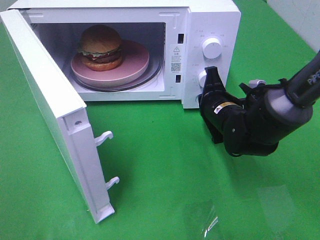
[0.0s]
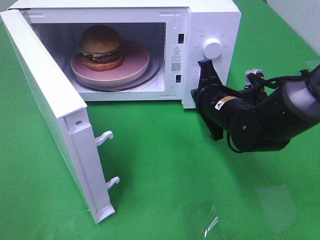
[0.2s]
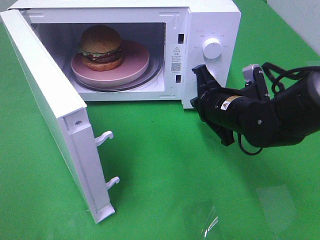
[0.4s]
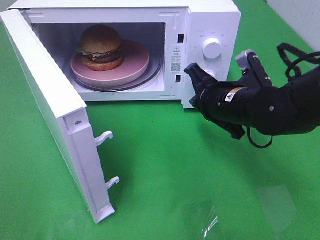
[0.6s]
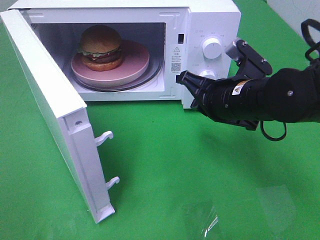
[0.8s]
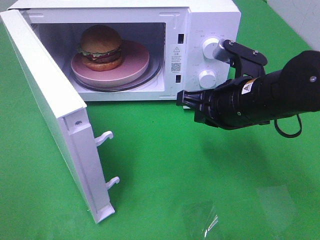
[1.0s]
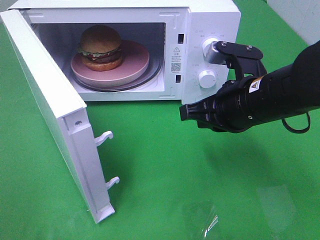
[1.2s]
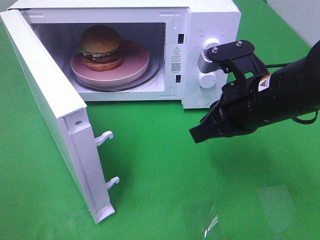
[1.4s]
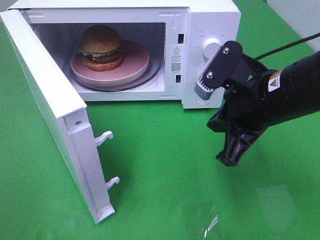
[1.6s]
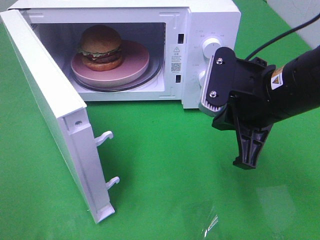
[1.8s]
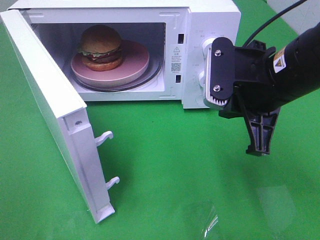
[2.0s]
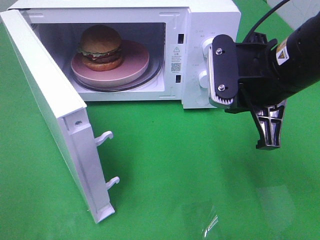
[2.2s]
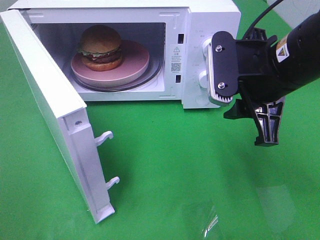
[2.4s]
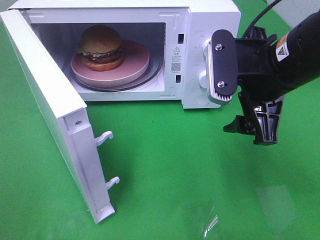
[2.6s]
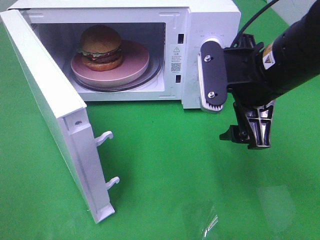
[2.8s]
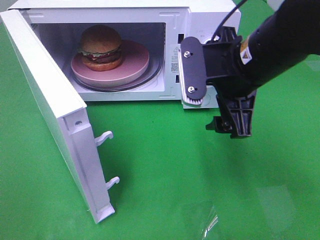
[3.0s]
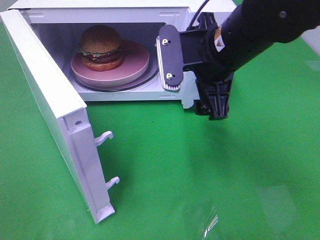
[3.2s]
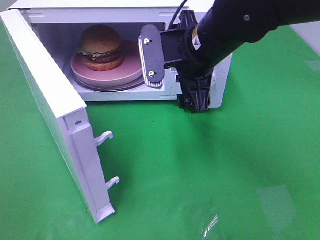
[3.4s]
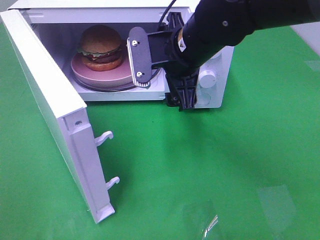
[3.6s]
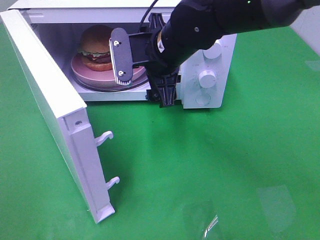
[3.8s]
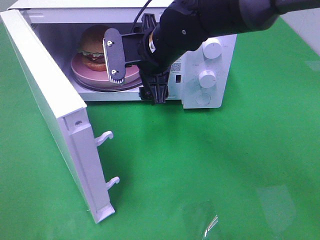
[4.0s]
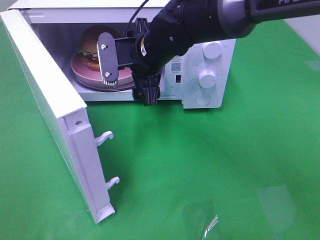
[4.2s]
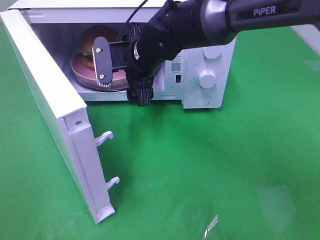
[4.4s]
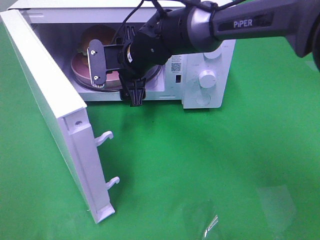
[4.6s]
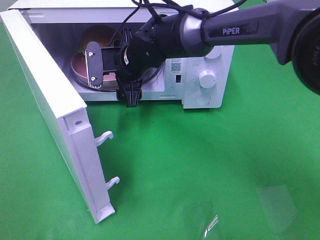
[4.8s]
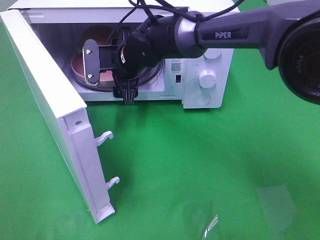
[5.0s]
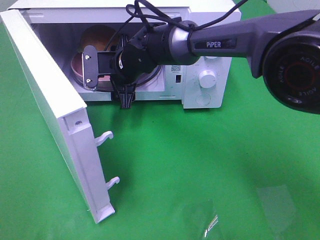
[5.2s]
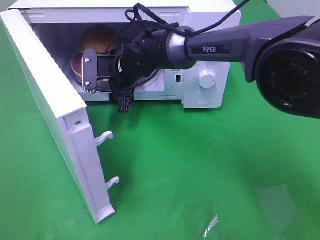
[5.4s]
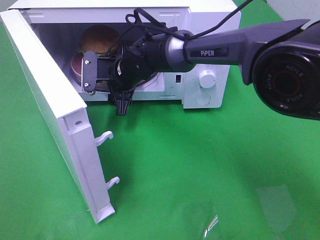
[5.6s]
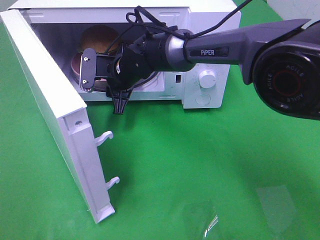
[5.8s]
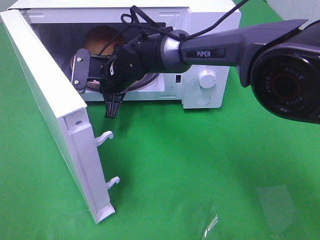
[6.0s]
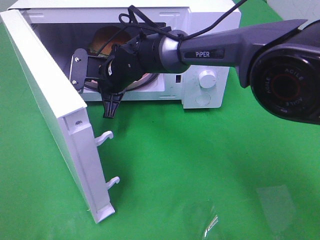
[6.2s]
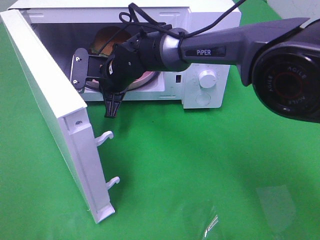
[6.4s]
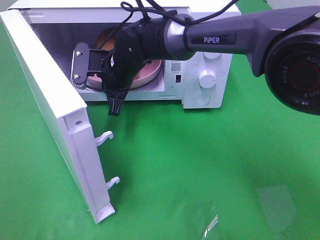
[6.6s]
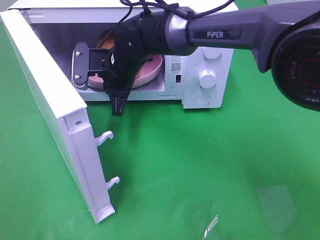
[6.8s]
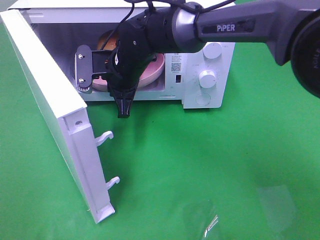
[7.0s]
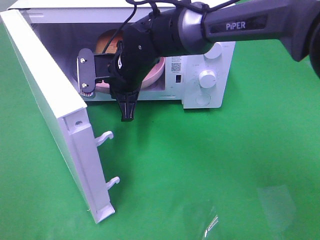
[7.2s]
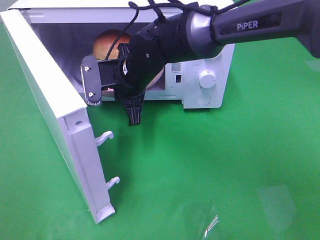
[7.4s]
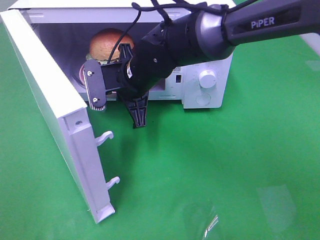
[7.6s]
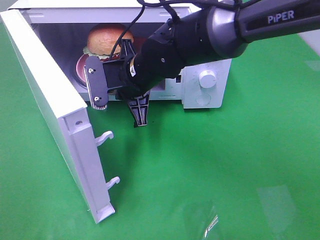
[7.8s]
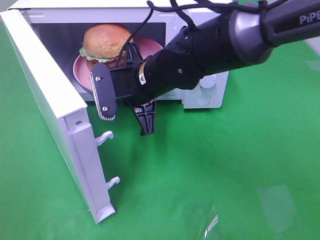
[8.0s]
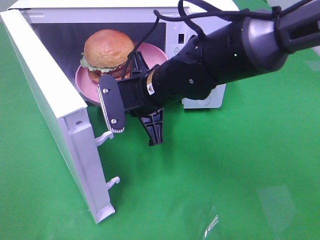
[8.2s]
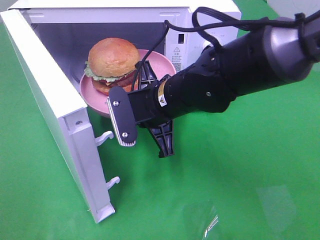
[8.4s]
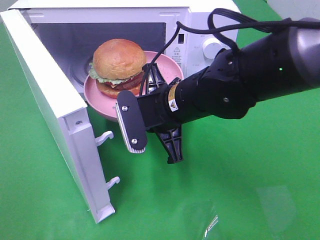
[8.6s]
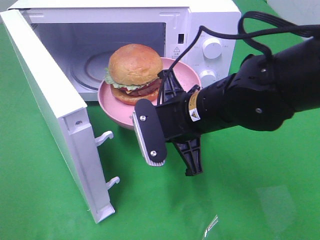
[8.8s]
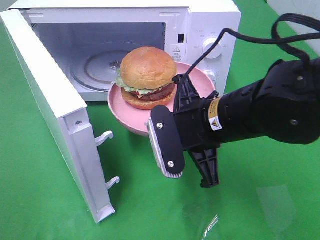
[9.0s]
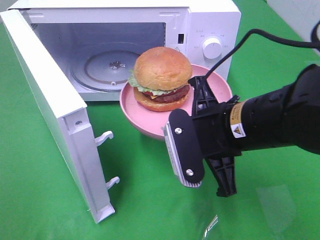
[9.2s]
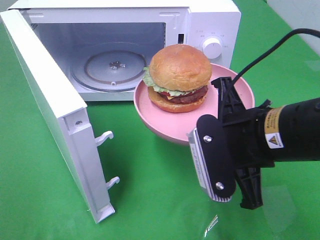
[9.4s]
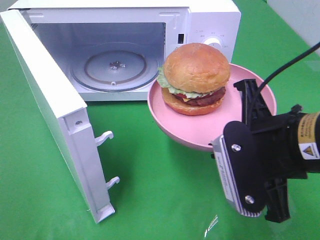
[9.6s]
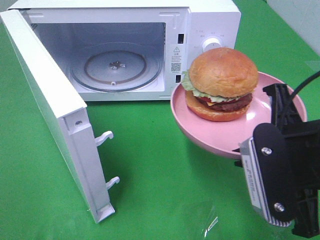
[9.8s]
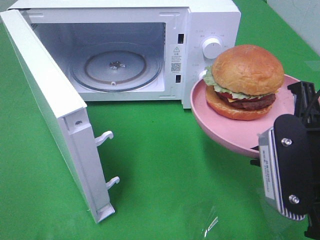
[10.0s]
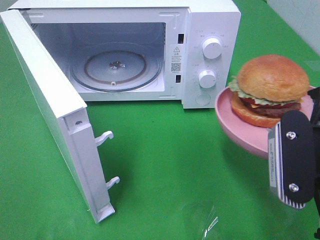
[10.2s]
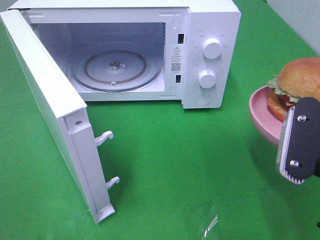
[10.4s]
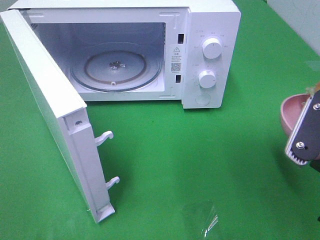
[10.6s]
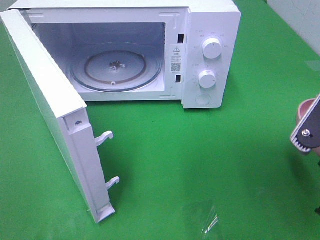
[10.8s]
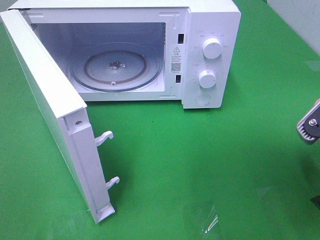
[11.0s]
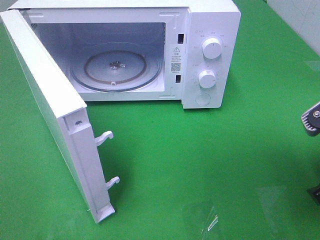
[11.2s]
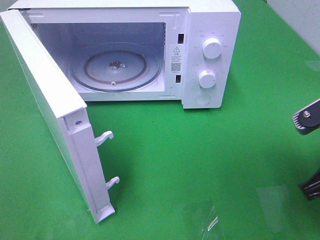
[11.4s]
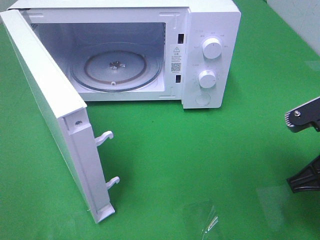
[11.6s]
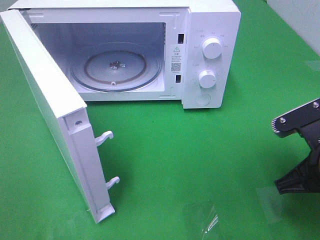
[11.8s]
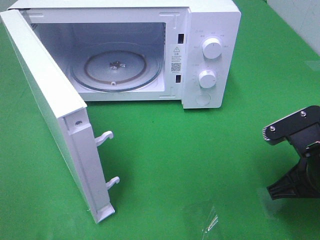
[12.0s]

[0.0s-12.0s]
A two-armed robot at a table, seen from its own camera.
Task of the whole recording: Heat the burger.
Step, 0.2s to 6.0s: Right hand: grab the plate with the hamburger.
0.0s to 1.6s: The right gripper shifts about 15 cm upward and backward.
1.6s to 3.0s: The right gripper ends up approximately 5 cm from where it was, and opens its fingers.
3.0s to 4.4s: The right gripper heads to the left, forward and downward, covering about 20 cm.
4.4s to 6.0s: The right gripper is displaced downward by approximately 5 cm, and closes its fingers.
6.0s to 7.6s: The right gripper goes some 5 cm backward.
7.6s to 9.0s: The right gripper shifts some 15 cm backward and to the right.
9.0s to 10.4s: The right gripper moves to the right and backward, approximately 15 cm.
10.4s to 12.0s: The right gripper travels downward by some 10 cm.

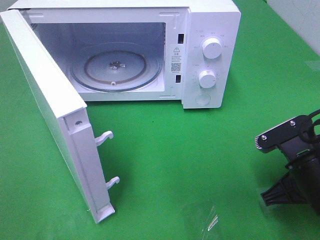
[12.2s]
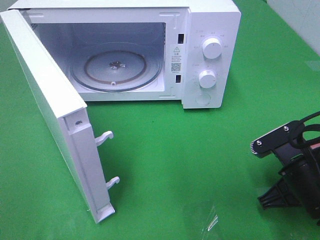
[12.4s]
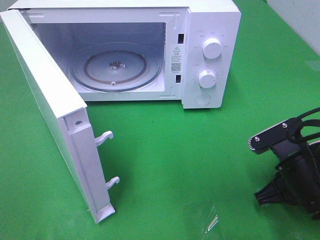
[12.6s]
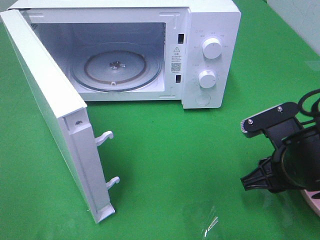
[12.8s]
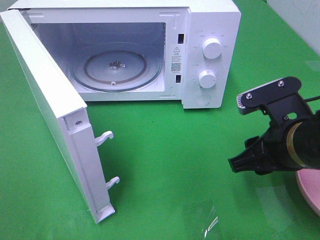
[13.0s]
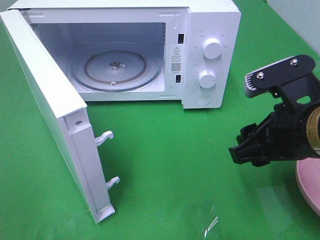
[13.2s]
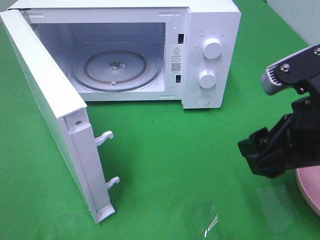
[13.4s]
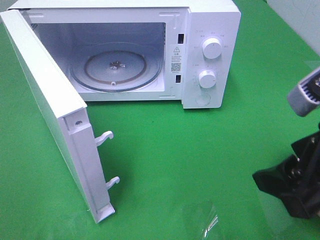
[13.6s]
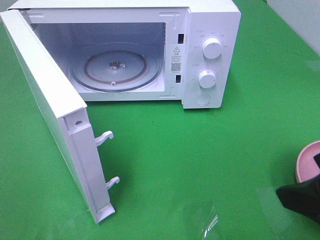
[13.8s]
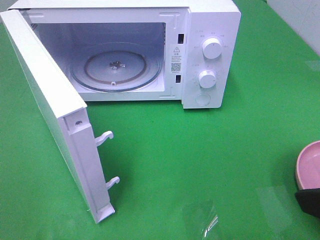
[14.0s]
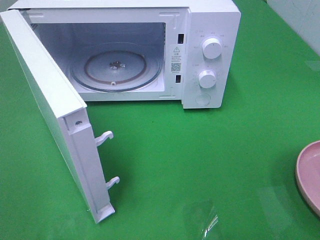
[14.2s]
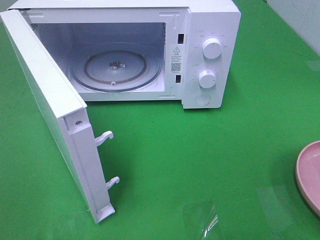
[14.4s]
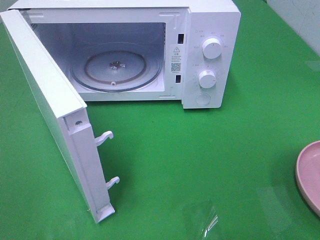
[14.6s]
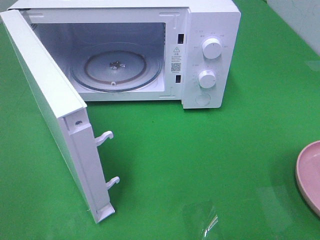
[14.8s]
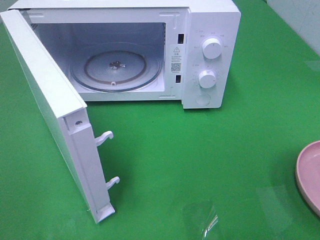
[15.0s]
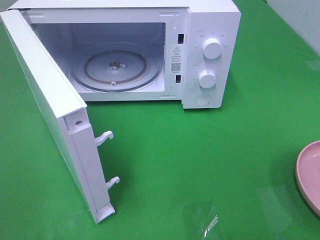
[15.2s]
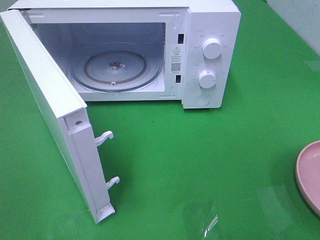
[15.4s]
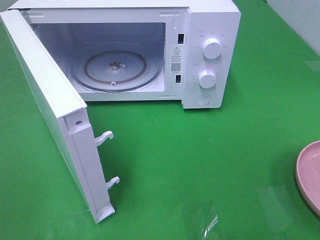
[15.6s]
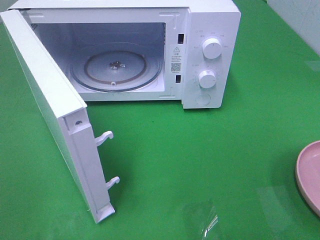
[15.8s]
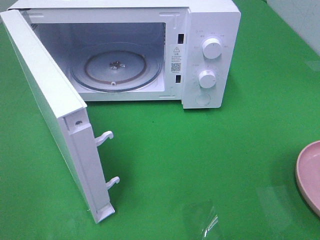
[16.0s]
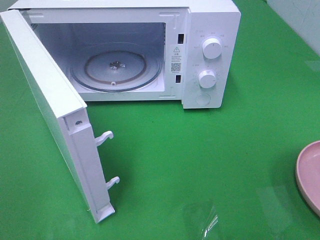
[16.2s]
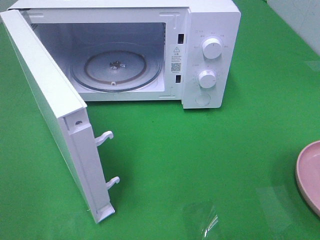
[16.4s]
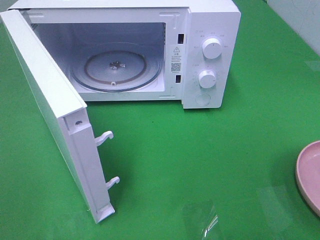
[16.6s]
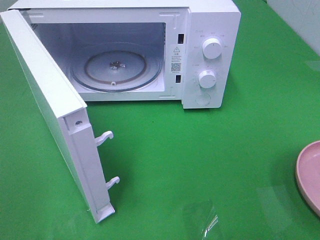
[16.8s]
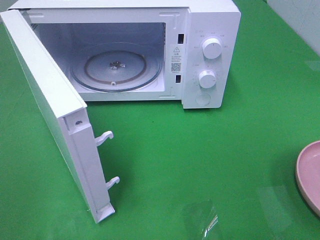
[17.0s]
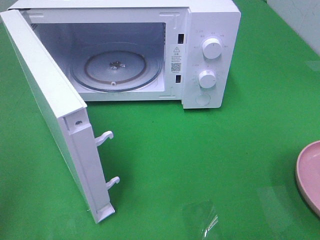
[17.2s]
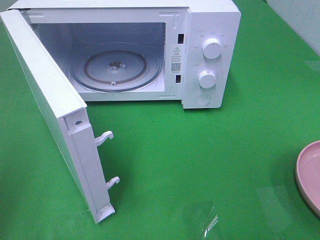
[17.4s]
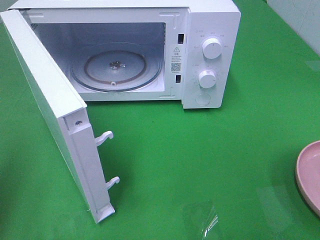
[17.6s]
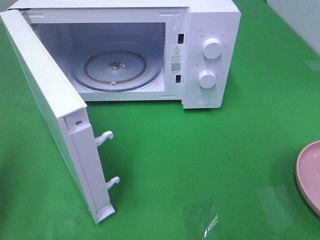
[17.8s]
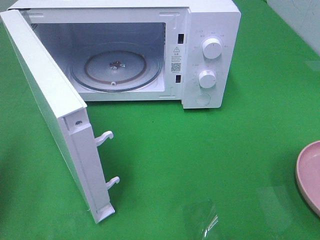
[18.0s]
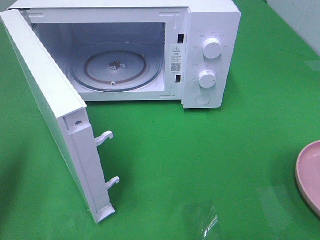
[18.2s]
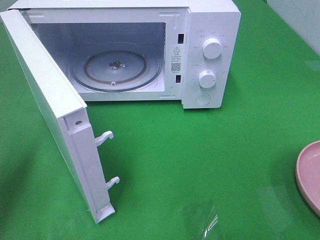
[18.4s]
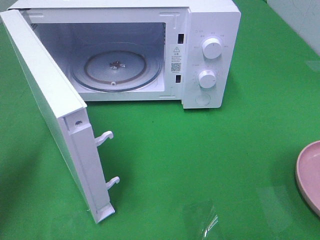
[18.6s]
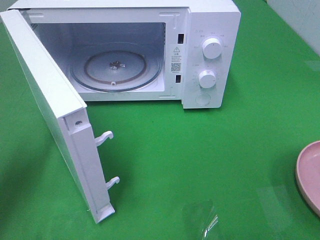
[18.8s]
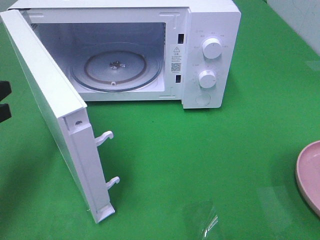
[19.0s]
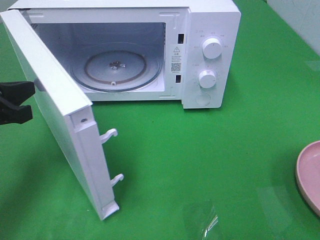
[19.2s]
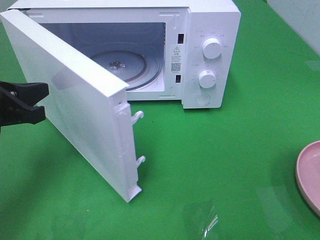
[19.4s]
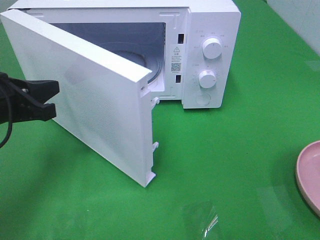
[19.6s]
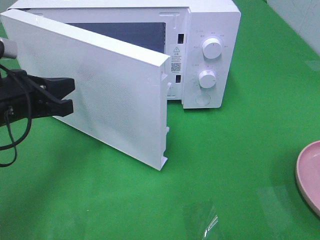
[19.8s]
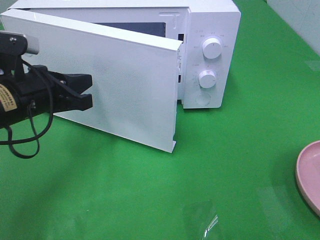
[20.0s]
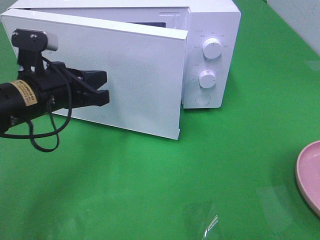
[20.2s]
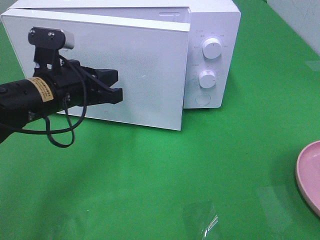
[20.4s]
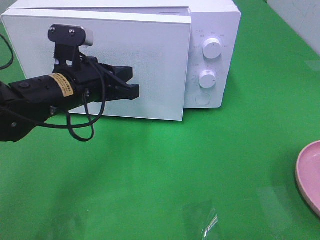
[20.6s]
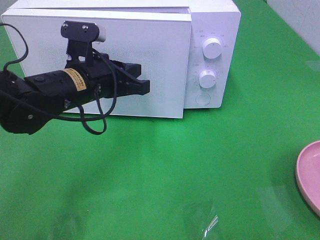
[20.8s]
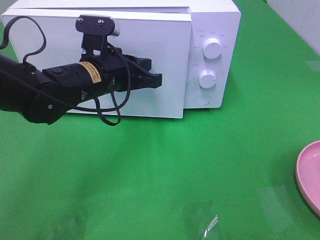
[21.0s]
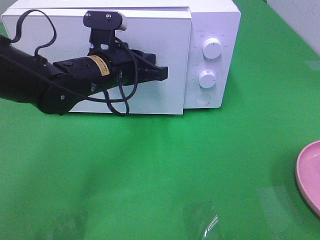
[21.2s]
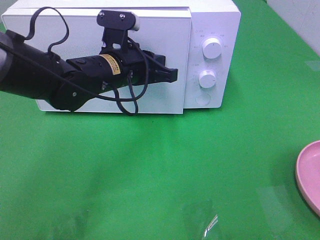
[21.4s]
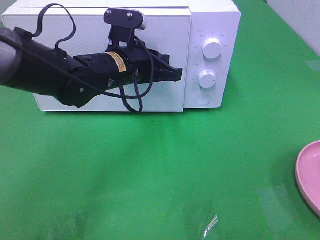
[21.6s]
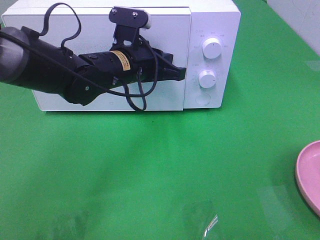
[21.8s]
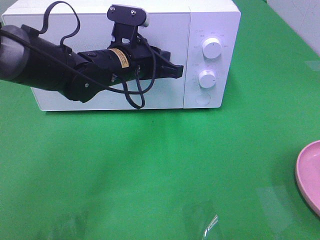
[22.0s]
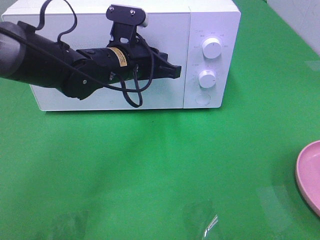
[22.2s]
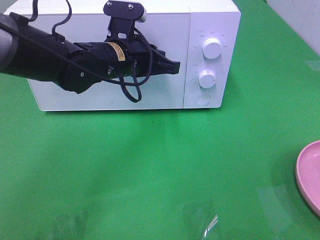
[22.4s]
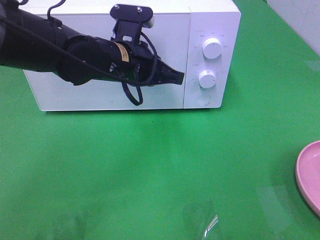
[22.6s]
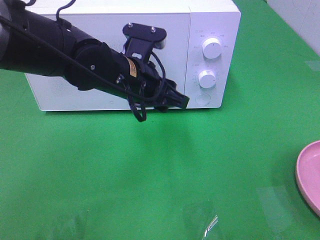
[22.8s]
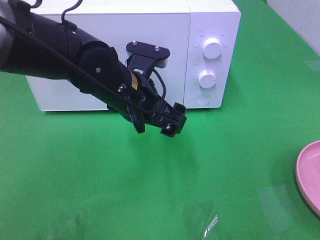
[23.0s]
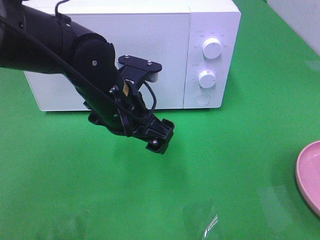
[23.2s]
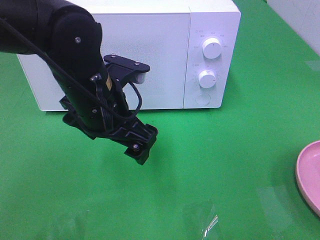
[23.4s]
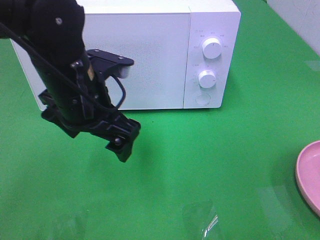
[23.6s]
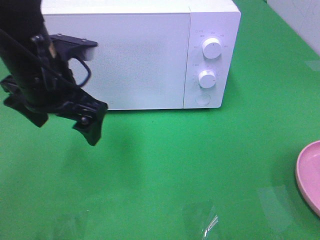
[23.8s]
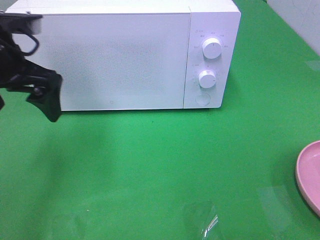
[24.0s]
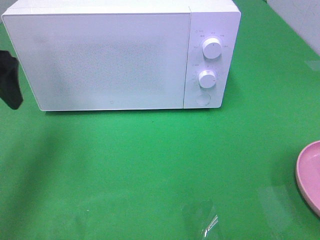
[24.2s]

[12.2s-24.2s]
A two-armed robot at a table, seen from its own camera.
Task of the whole recording: Heat the burger.
Step, 12.8s to 22.6s: Left hand: close the microwave door.
12.2s to 13.8s: The right gripper goes about 15 cm upward and backward, and opens up.
13.8s to 15.2s: The right gripper travels backward and to the right by about 15 cm.
15.2s to 16.6s: Both grippers stay about where they are.
16.6s to 18.2s: The left gripper goes about 20 cm forward, and closes its fingers.
18.2s to 19.8s: The left gripper heads to the right and forward, covering roughly 15 cm.
19.8s to 21.2s: The left gripper is displaced to the right and forward by roughly 15 cm.
21.2s to 22.6s: The grippers make only small movements.
22.6s to 24.2s: The left gripper shifts roughly 25 cm to the left and upward, and opens.
